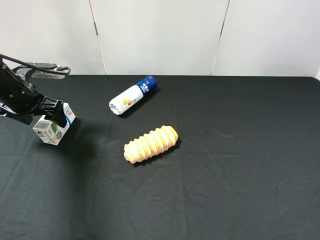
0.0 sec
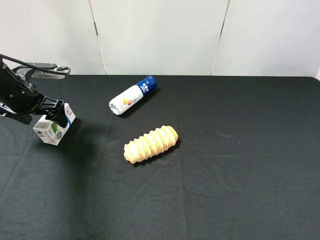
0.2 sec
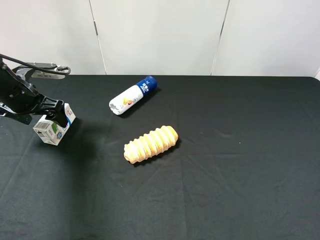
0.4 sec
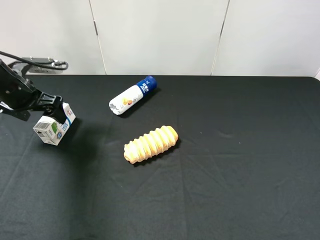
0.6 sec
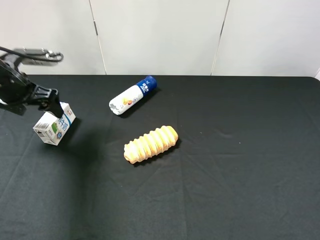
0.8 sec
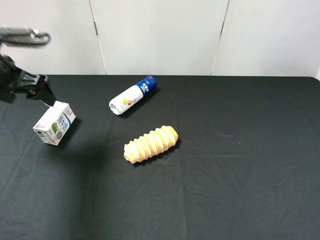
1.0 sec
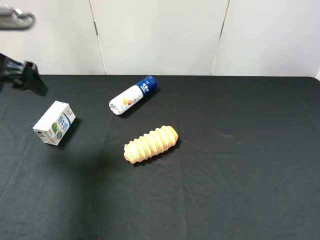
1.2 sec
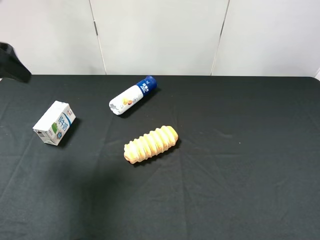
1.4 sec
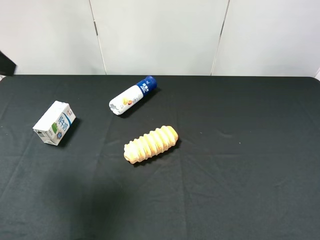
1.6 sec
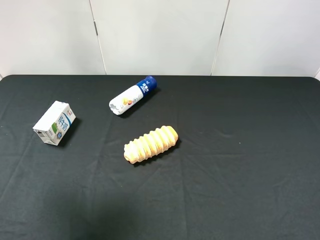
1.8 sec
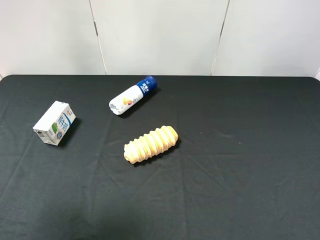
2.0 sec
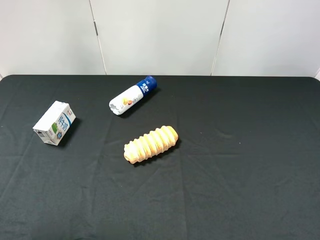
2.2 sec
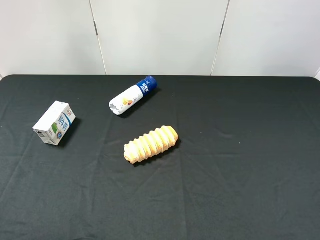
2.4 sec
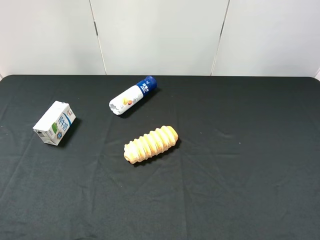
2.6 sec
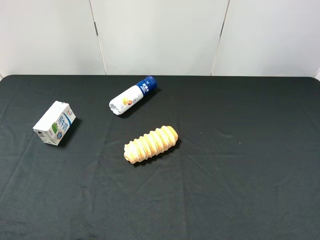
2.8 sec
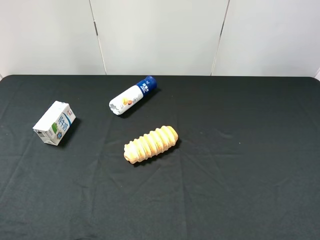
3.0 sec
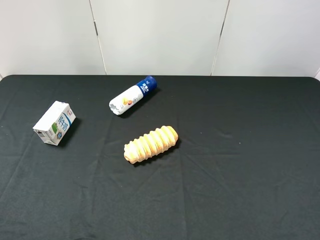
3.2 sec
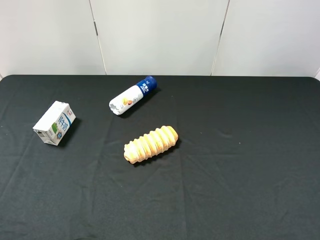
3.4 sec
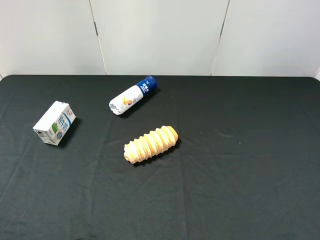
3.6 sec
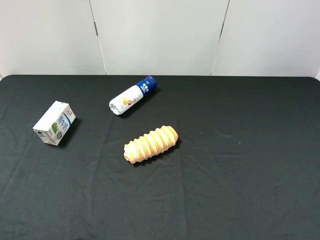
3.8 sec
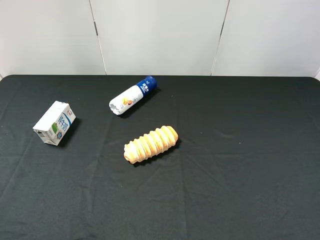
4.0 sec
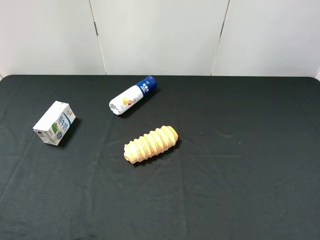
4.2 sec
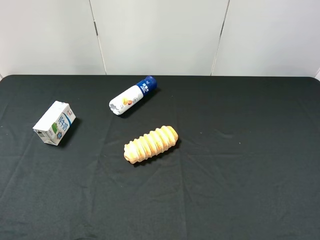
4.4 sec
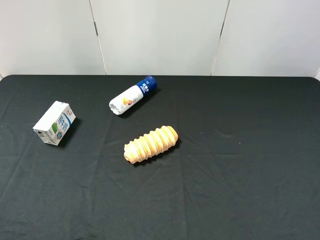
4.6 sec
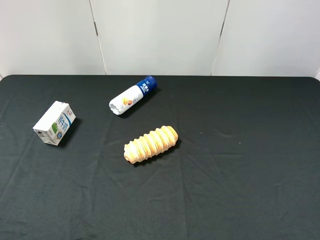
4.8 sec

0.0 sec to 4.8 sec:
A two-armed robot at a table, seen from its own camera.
Task of the whole recording: use the right gripper to pick up the item and transfer it from the right gripper to the left gripper.
0.0 sec to 1.6 sec: The left gripper goes approximately 25 cm upward and backward.
1.6 sec to 3.2 sec: The left gripper is displaced backward by some 20 cm.

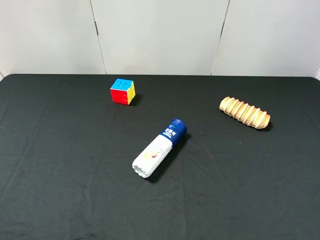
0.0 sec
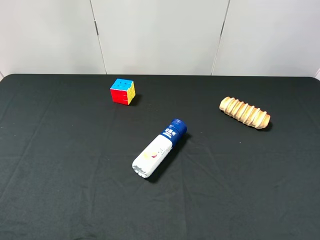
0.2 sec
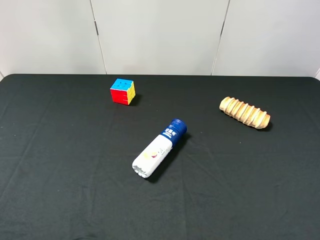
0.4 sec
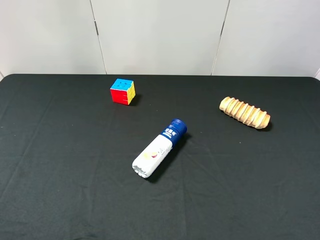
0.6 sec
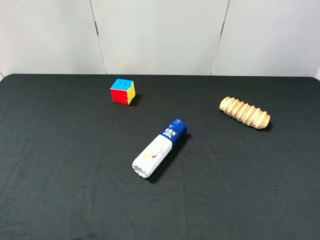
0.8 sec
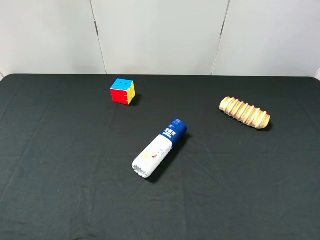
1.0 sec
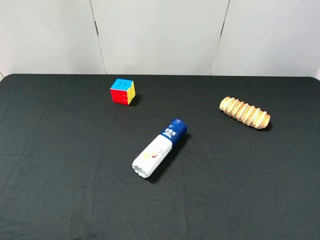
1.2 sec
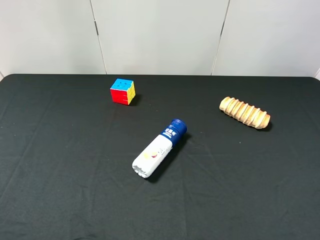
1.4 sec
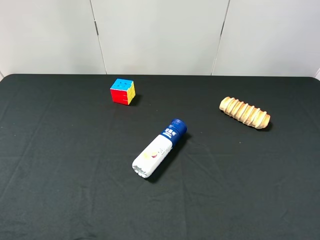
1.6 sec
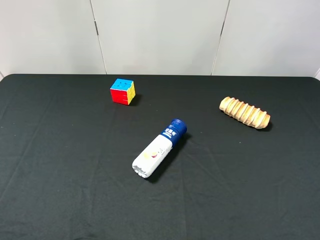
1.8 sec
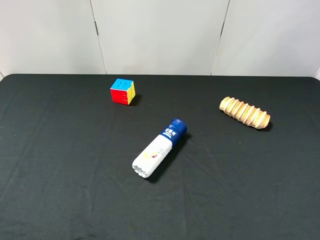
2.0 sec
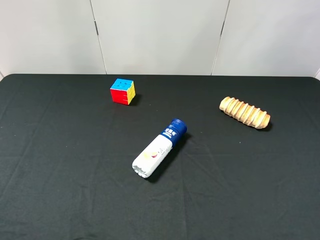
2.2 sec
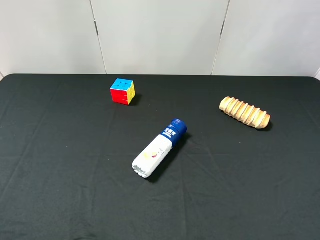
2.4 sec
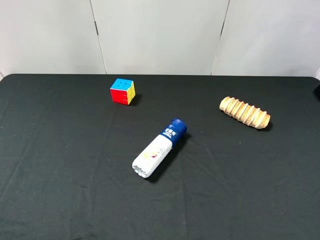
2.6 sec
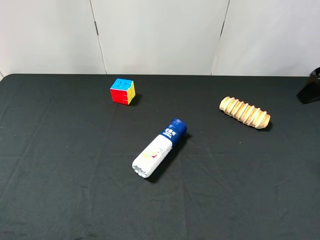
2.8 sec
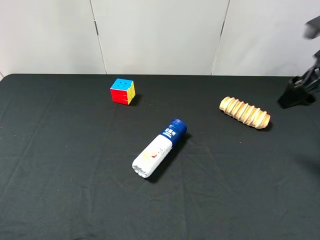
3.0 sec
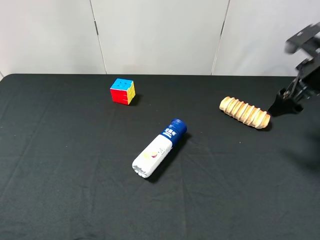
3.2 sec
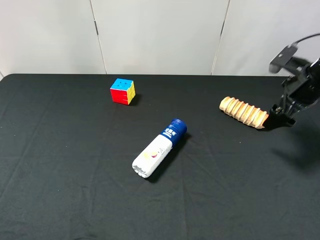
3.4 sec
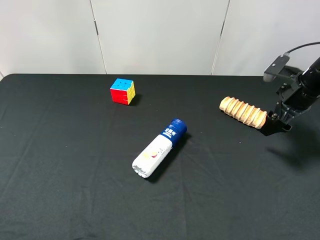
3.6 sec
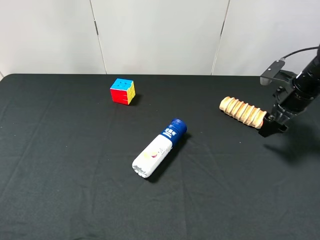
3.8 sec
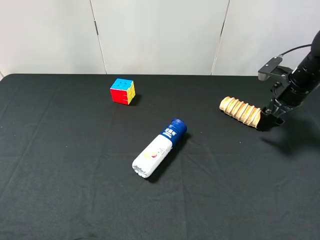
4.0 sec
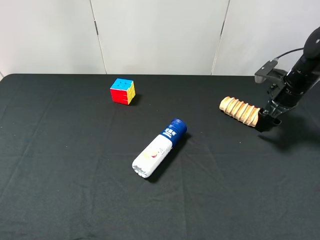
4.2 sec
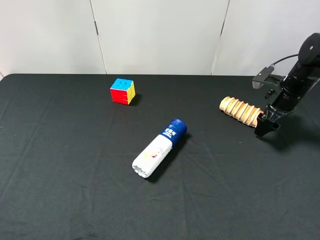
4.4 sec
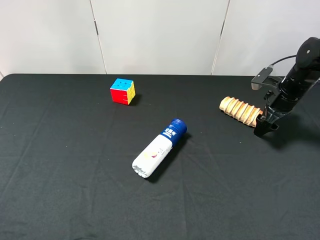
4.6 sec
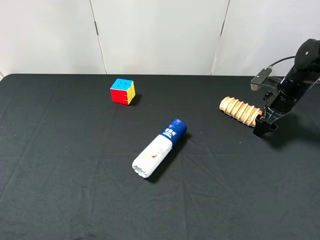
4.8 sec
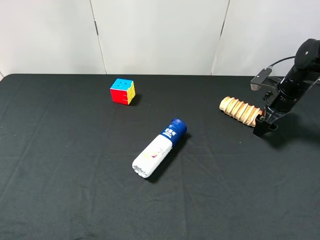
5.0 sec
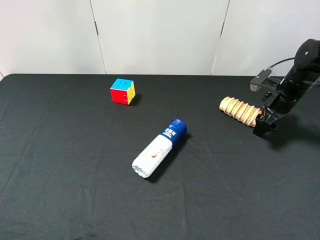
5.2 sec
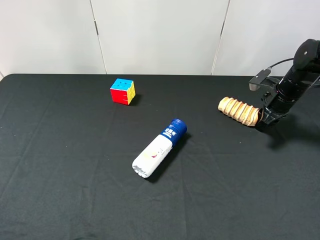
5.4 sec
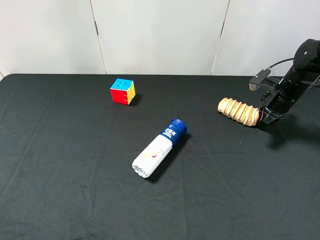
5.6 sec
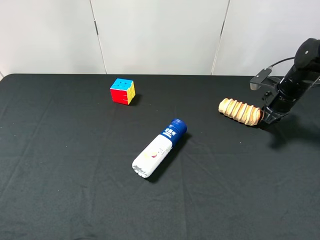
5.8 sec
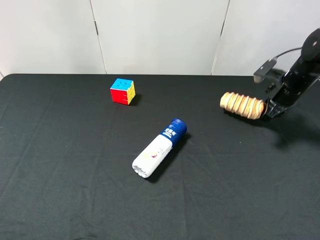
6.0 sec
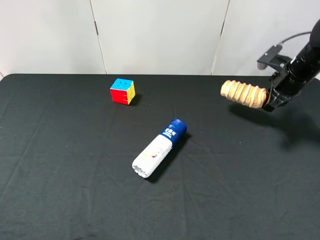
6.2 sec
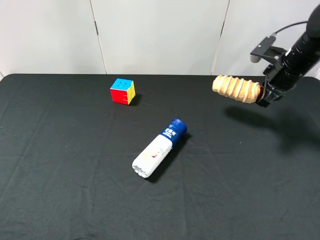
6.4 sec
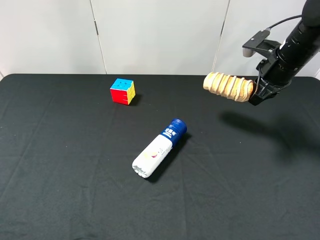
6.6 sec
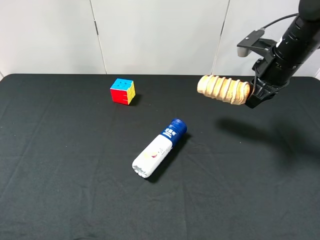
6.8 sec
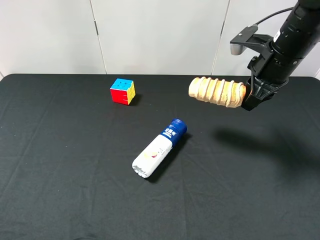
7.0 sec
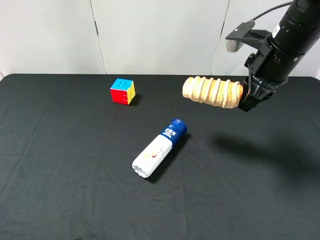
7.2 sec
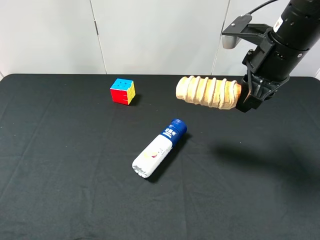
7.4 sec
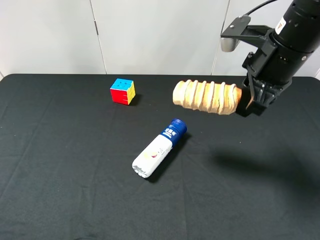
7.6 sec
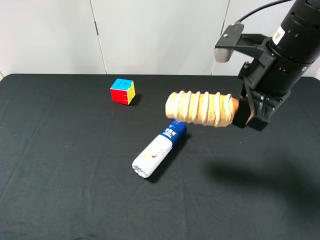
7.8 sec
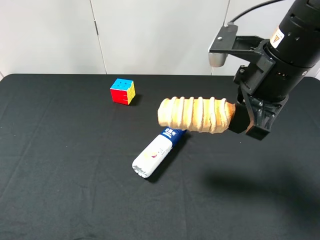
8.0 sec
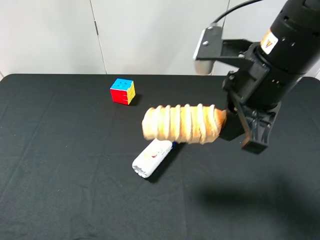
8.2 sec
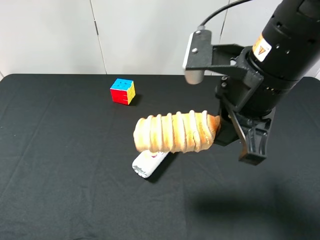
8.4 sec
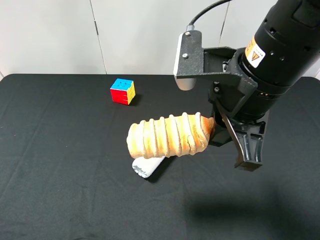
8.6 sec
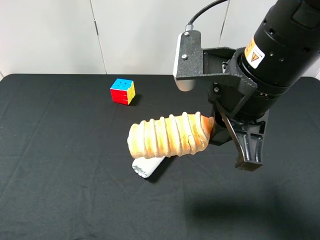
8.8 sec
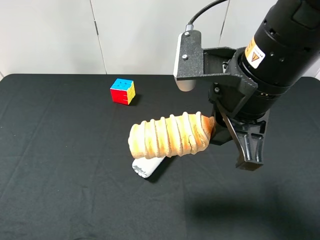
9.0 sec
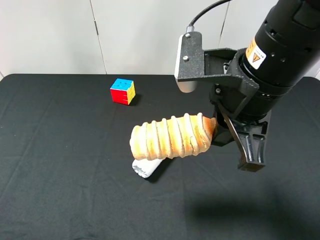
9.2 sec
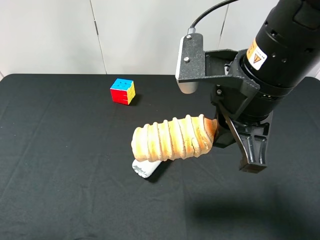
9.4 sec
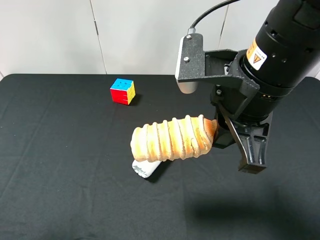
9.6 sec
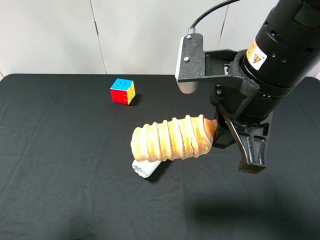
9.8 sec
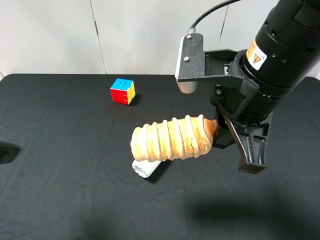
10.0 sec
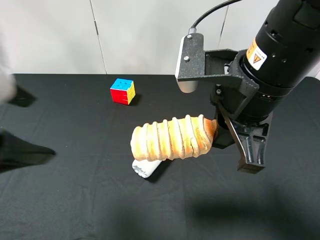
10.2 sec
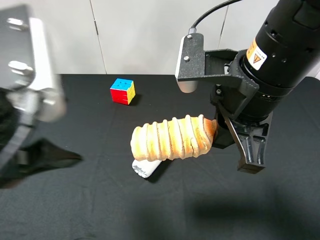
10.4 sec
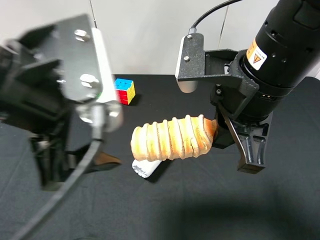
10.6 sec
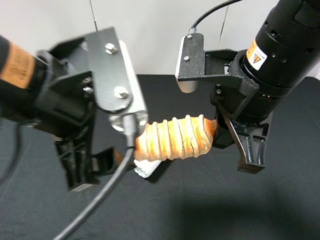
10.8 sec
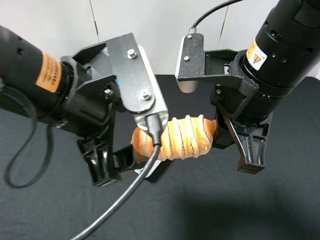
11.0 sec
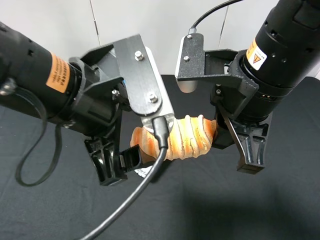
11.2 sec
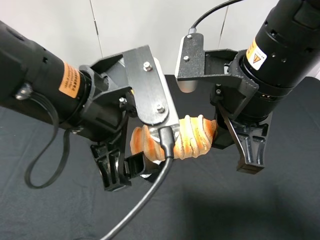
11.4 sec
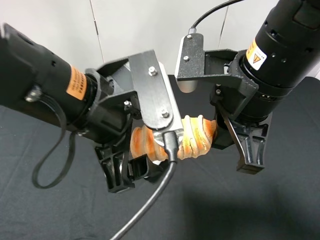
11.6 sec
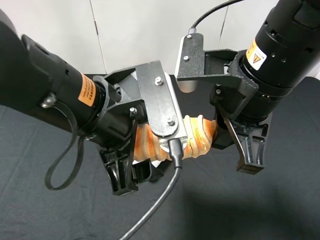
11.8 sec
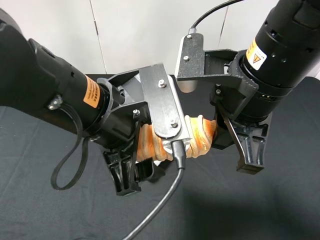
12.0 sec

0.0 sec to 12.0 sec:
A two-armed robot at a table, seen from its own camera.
Task of the whole recording: use the right gripper to pick up the item and transfer it from the right gripper to the left gripper.
Step, 0.0 sec to 5.4 sec: Use the right gripper to grab the bread on the right side of the table.
1.6 sec to 3.0 sec: The right gripper heads forward, covering approximately 30 cm.
3.0 sec to 4.4 sec: The right gripper goes approximately 15 cm downward and forward.
4.4 sec to 6.0 sec: The right gripper closes.
6.0 sec to 7.6 sec: The right gripper shifts approximately 25 cm to the left, upward and backward.
7.6 sec to 9.0 sec: The right gripper travels backward and to the left by roughly 10 cm.
9.0 sec to 10.4 sec: The left gripper goes some 20 cm to the right and forward.
10.4 sec to 12.0 sec: The left gripper heads to the right and downward, covering roughly 10 cm.

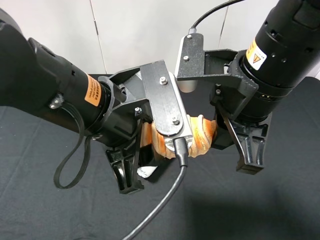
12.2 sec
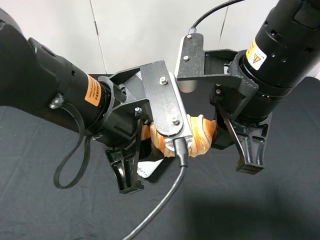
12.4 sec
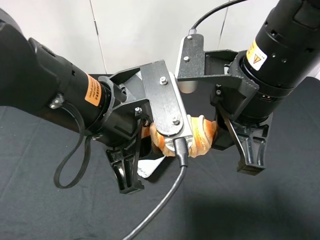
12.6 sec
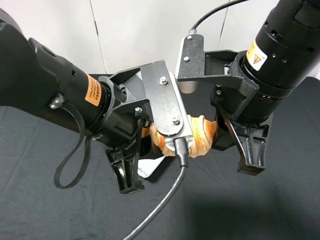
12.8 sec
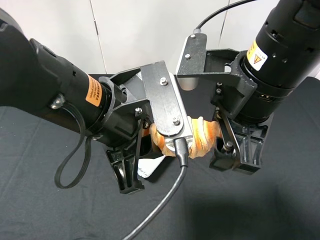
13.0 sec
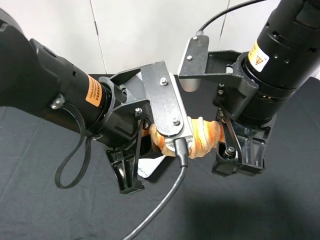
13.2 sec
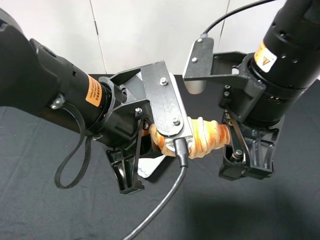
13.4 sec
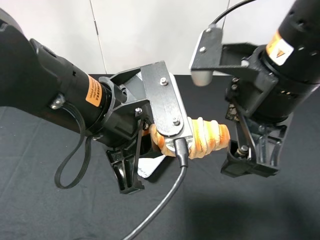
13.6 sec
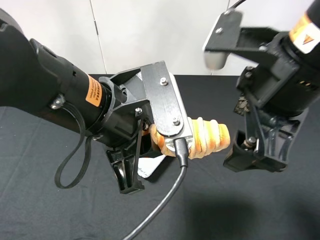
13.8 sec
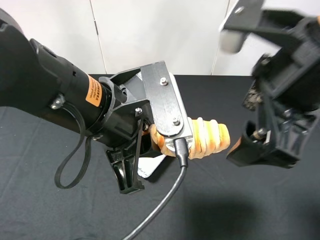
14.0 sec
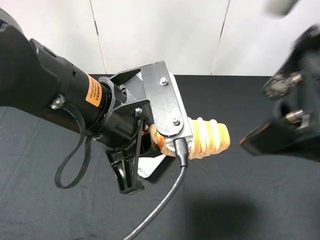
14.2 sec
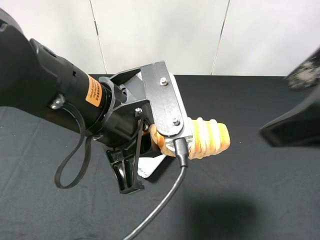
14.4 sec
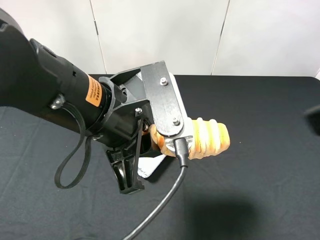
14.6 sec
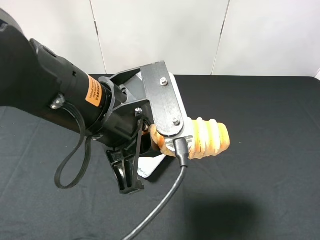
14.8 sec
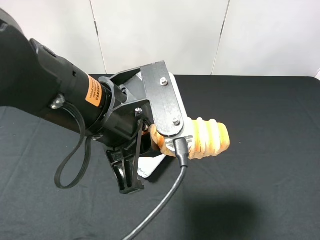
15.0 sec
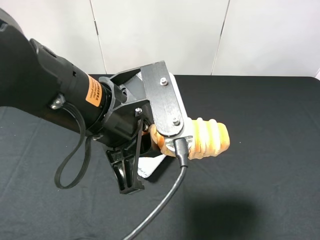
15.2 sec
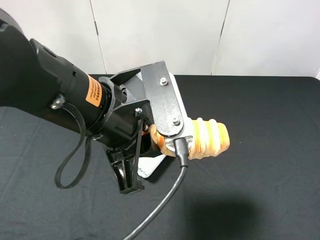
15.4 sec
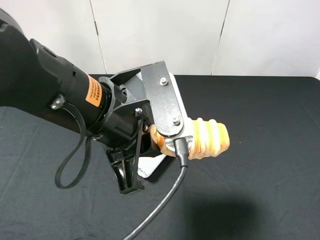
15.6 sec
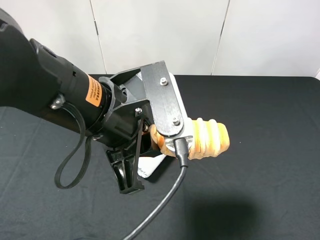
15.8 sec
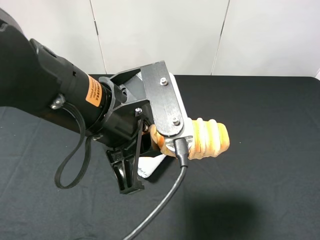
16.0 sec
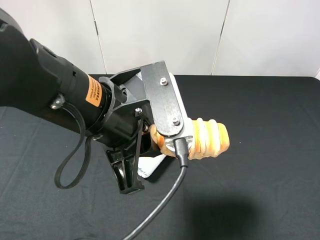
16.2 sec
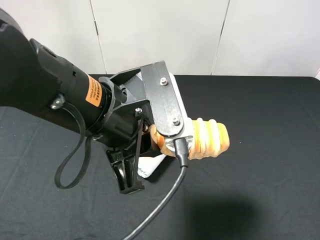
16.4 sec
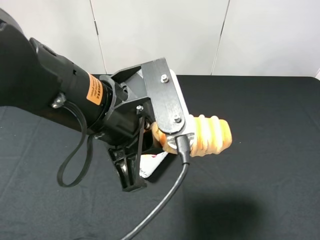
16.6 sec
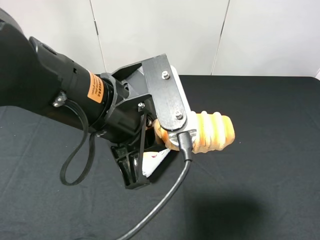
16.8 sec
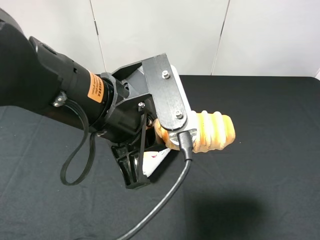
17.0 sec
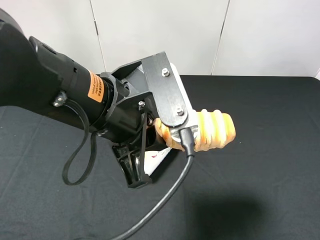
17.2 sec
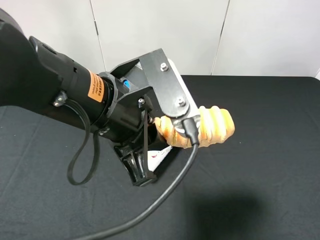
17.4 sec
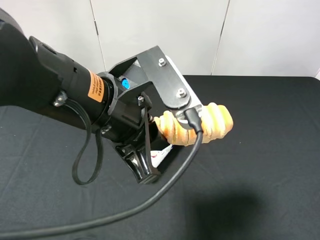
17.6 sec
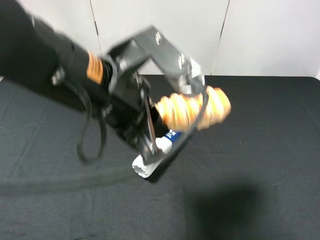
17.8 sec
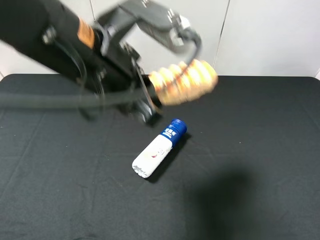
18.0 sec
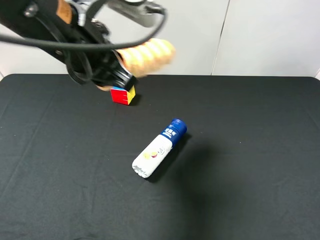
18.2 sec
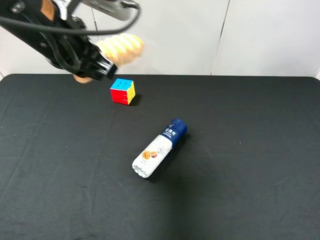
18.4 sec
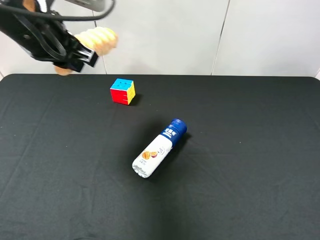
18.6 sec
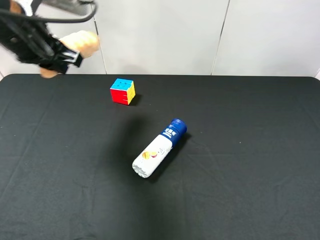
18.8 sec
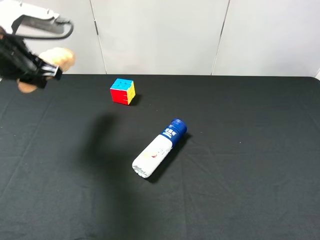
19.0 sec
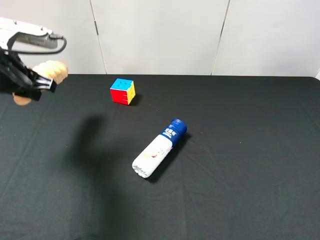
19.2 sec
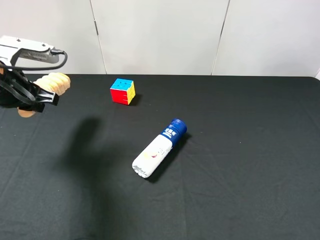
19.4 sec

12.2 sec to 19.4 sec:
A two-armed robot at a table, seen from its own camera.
Task of the whole recording: use the right gripper to pick up the item and transfer it from the right gripper to the left gripper.
12.2 sec to 13.6 sec: The right gripper opens.
13.6 sec to 15.0 sec: The right gripper heads to the right and backward, covering some 20 cm.
15.0 sec to 16.6 sec: The right gripper changes place by approximately 5 cm.
16.6 sec to 18.0 sec: The left gripper ends up roughly 5 cm from where it was.
18.0 sec to 19.4 sec: The left gripper goes some 20 cm to the left and downward.
